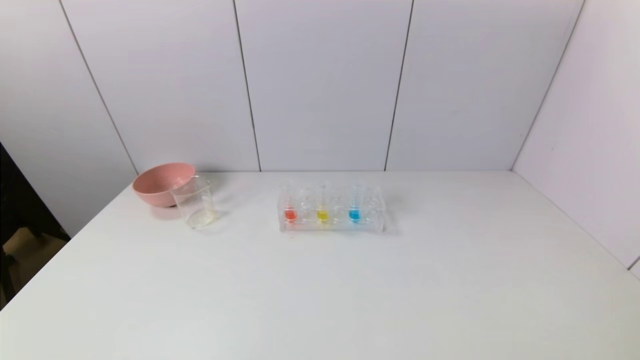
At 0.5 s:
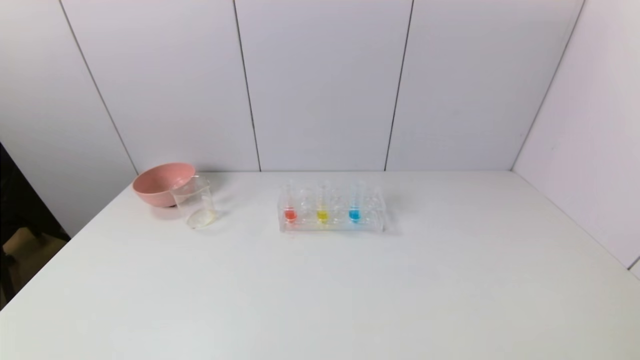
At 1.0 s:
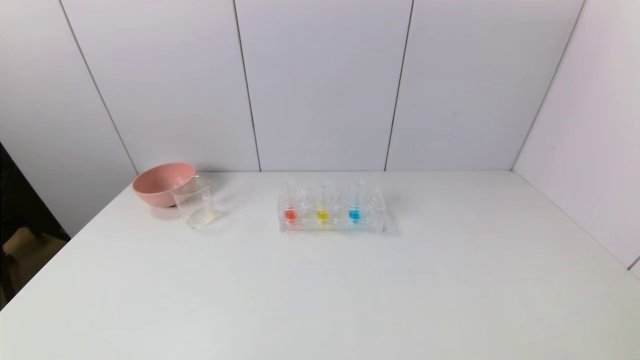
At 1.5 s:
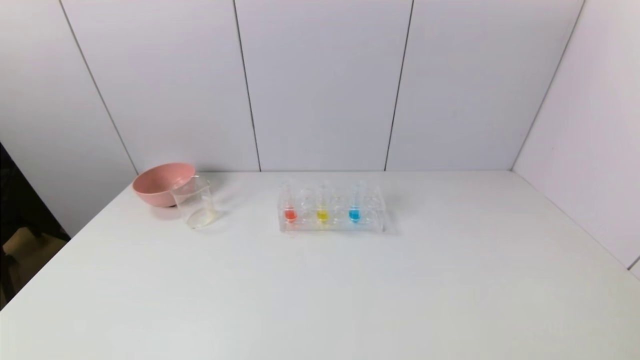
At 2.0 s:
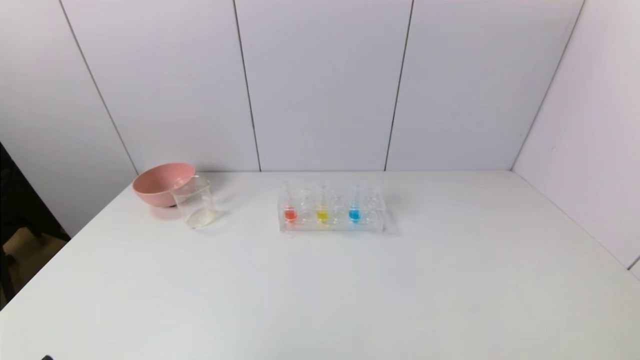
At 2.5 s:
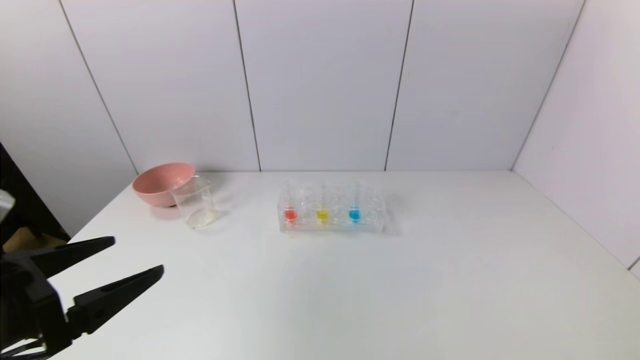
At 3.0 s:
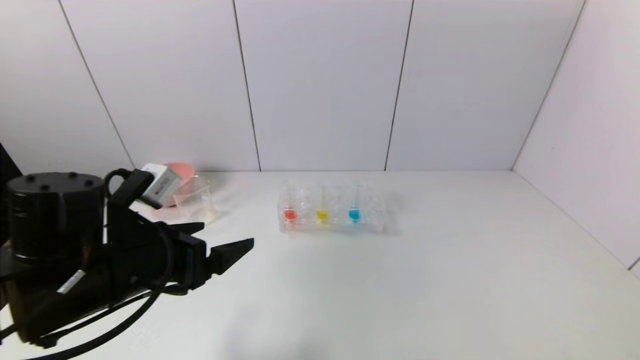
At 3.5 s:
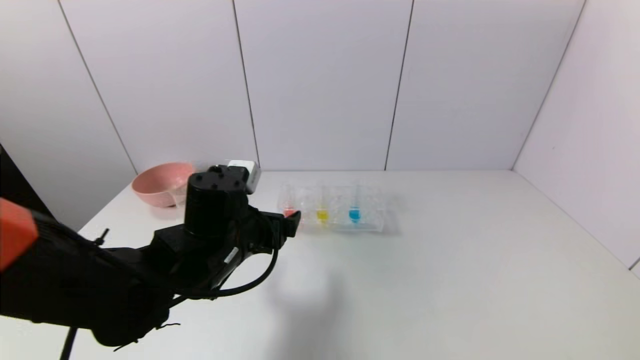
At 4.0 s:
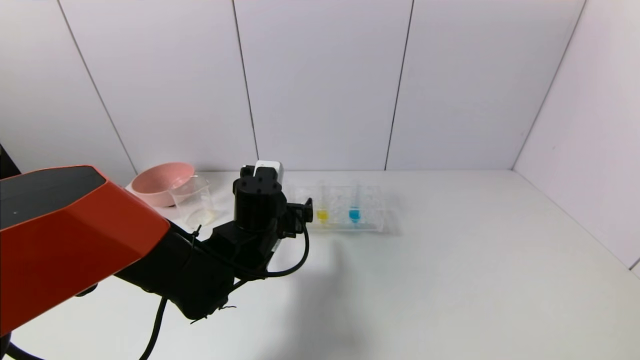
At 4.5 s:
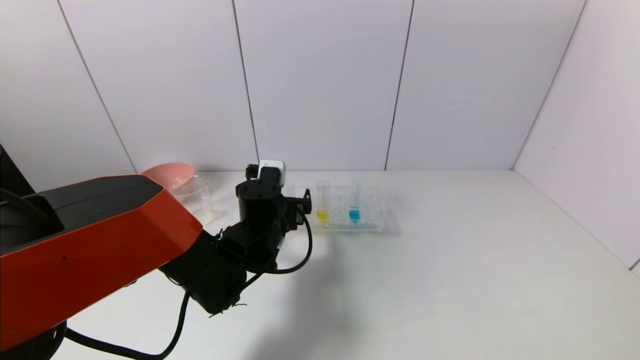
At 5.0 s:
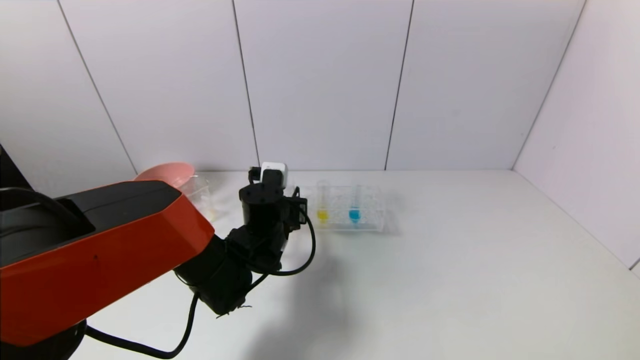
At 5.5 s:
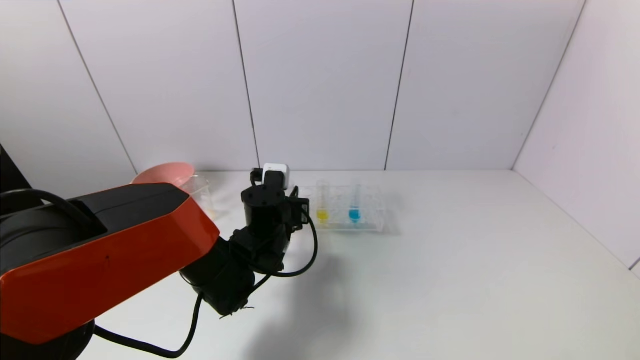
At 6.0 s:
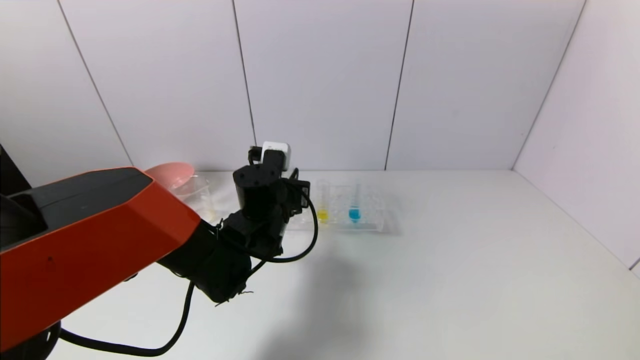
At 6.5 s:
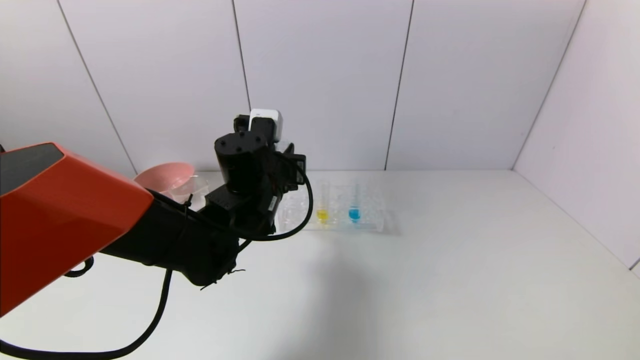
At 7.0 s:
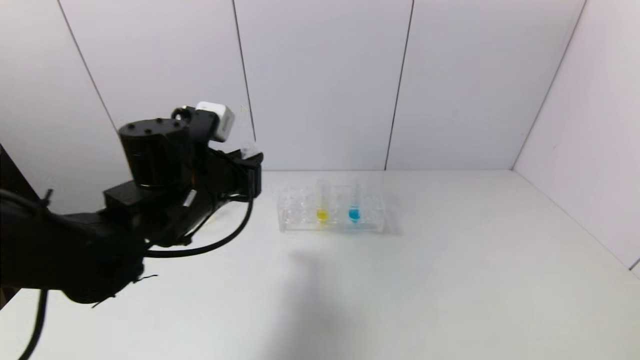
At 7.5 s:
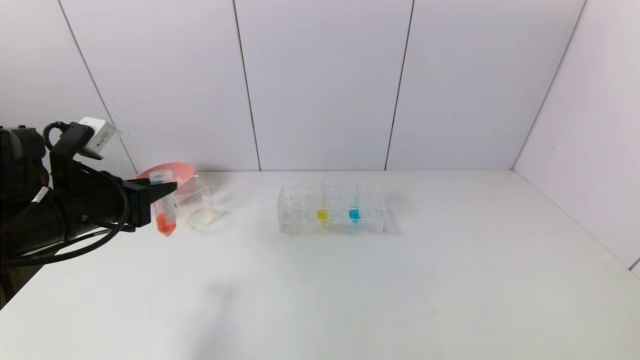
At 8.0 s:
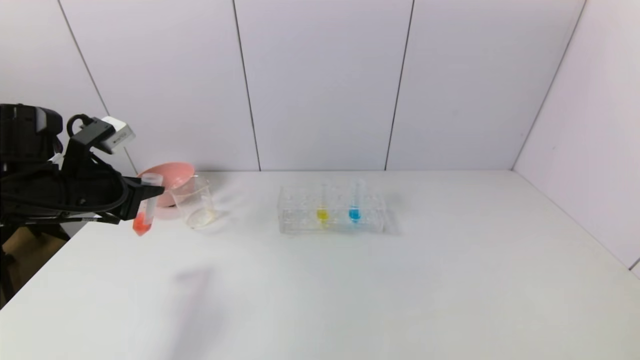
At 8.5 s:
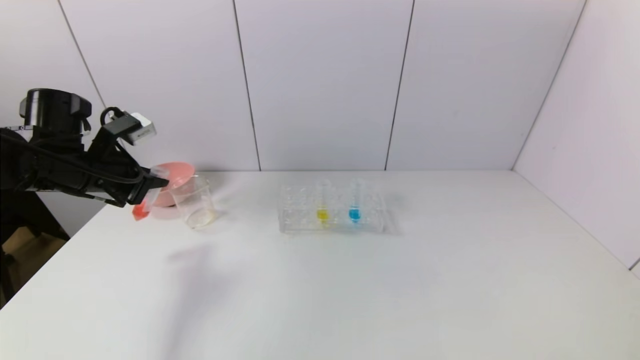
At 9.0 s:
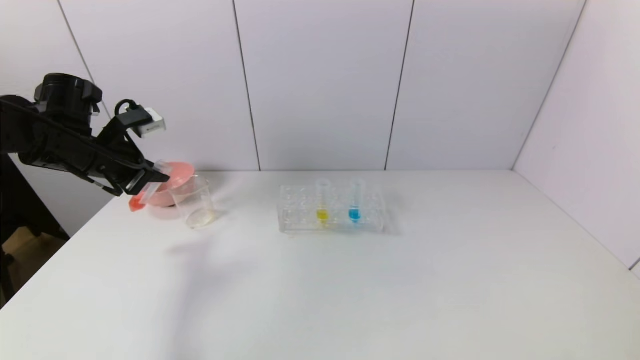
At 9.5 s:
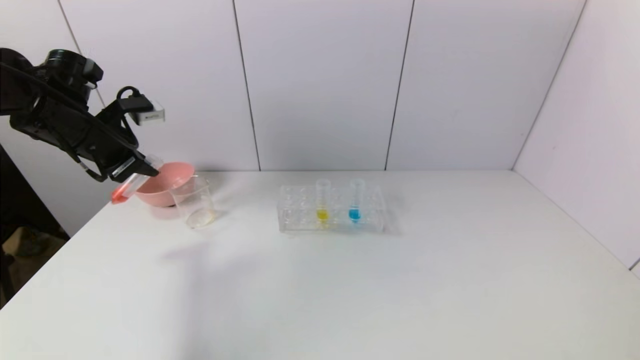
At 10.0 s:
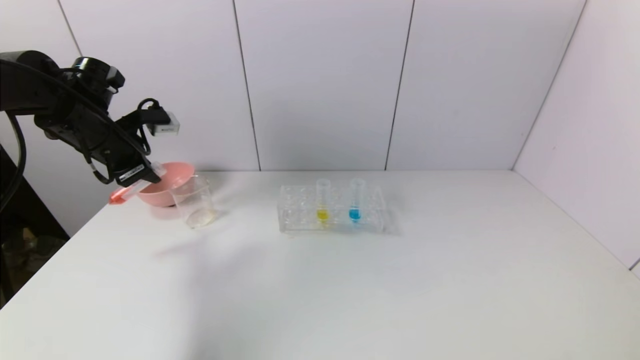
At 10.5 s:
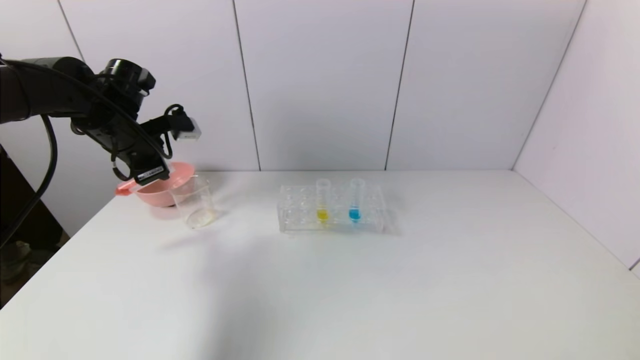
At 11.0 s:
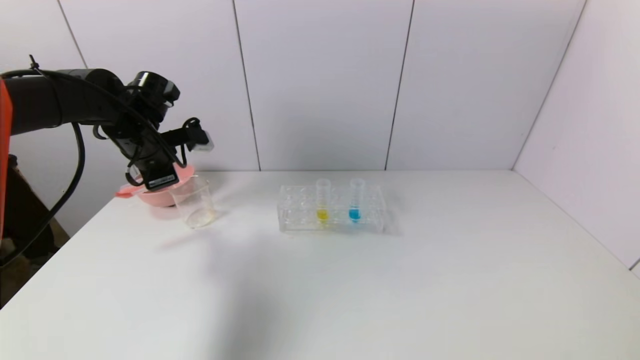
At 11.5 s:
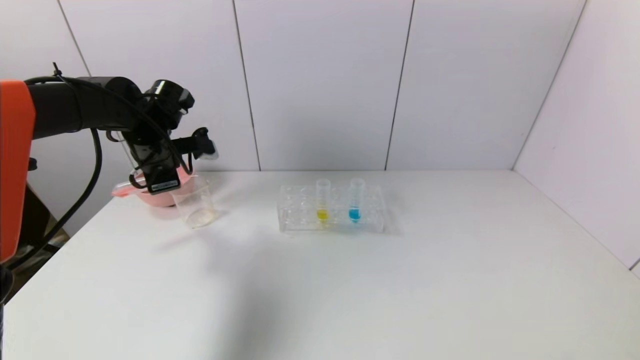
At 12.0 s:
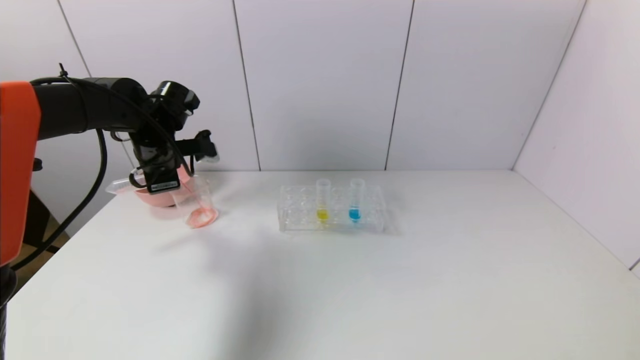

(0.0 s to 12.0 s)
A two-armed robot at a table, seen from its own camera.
Task of the whole recording: pick up the test tube with yellow pigment and the test tube with red pigment by grippers and pour them into the beaker.
Step, 0.0 s - 5.0 s: Grasp the red reagent with the left gripper.
2.0 s - 4.0 s: The left gripper travels forward and to the right by roughly 40 cm.
4.0 s - 6.0 s: The left gripper closes its fingers.
6.0 s - 8.0 s: The left gripper goes approximately 25 cm to the left.
8.0 s - 10.0 s: The left gripper is displaced forward by about 10 cm.
10.0 s - 12.0 s: The left gripper heads to the right, covering some 5 cm.

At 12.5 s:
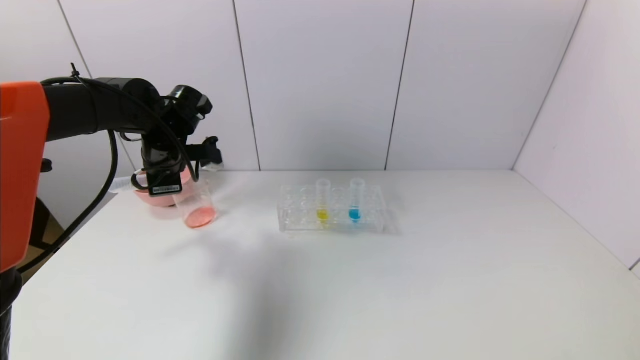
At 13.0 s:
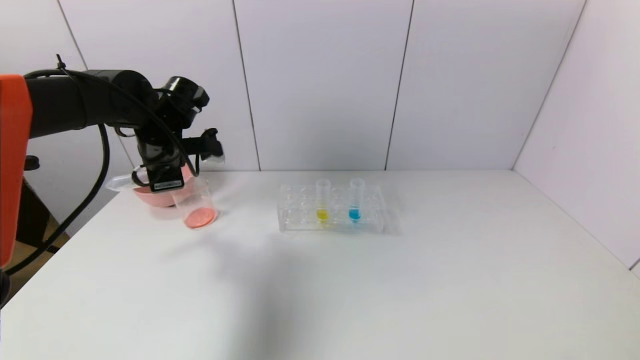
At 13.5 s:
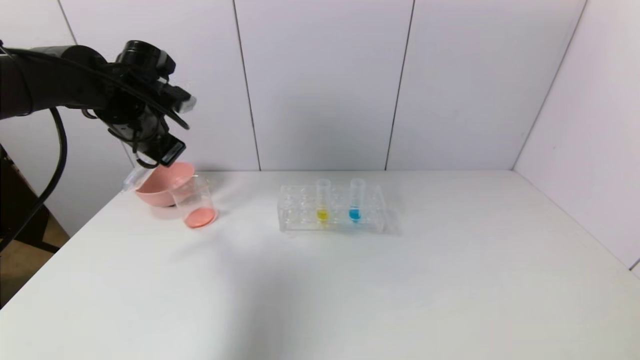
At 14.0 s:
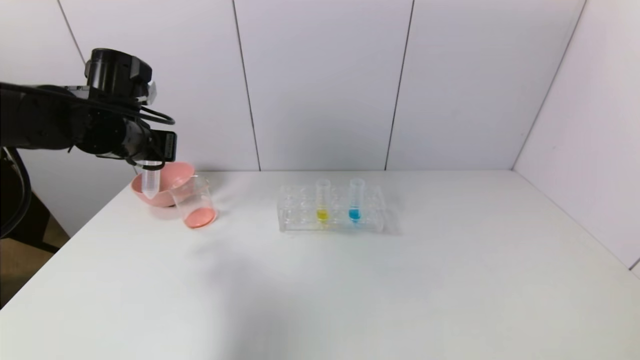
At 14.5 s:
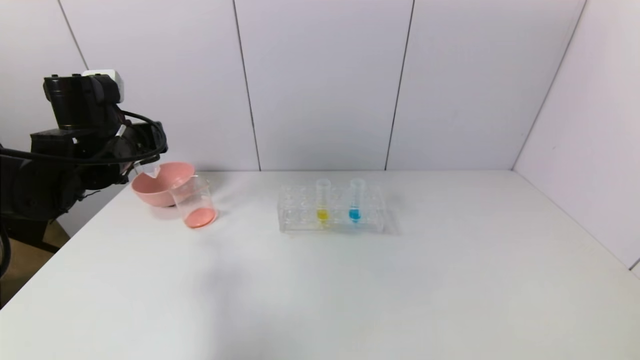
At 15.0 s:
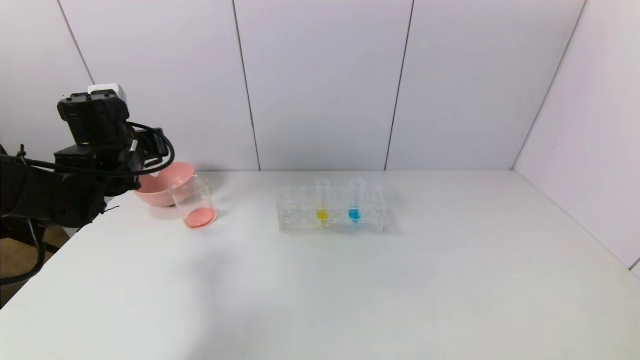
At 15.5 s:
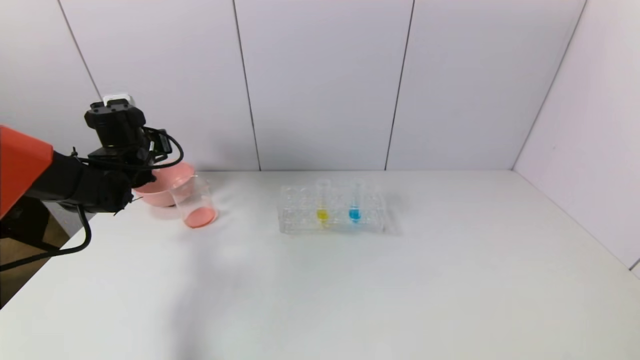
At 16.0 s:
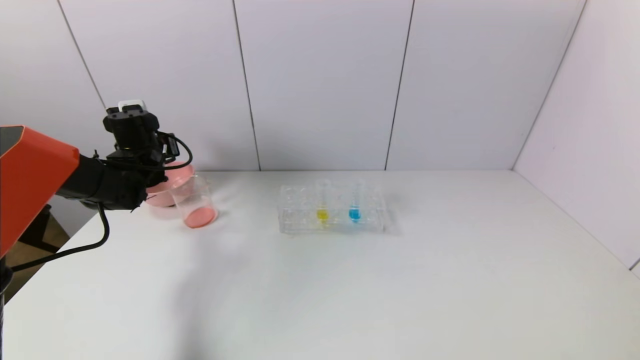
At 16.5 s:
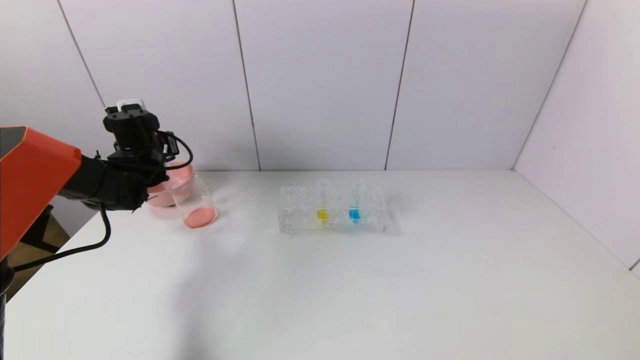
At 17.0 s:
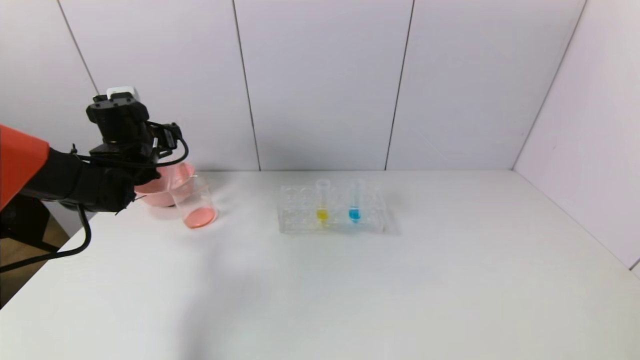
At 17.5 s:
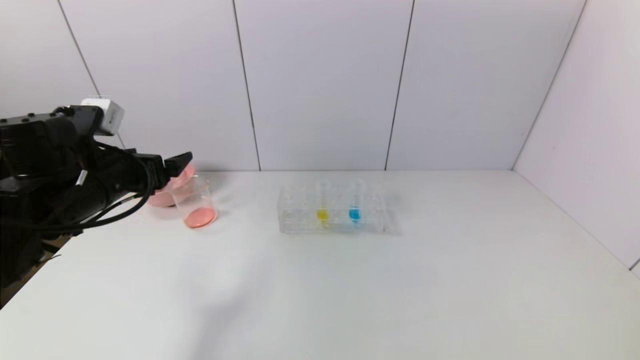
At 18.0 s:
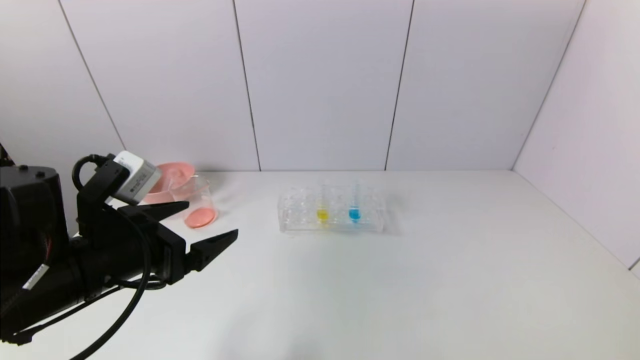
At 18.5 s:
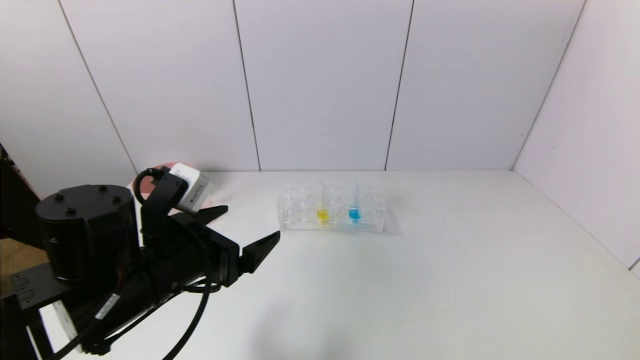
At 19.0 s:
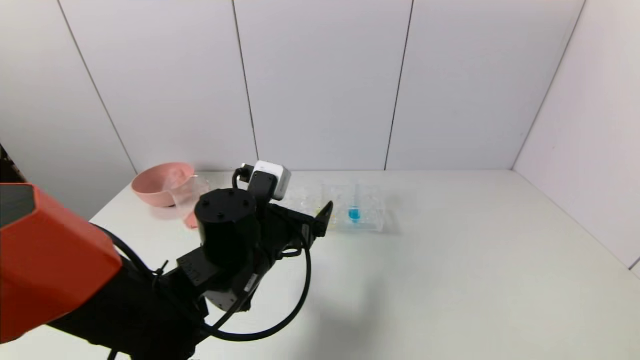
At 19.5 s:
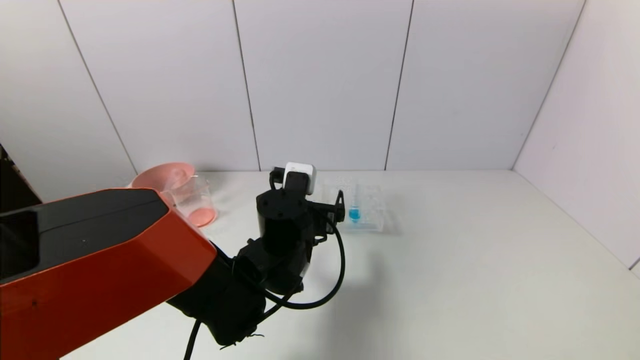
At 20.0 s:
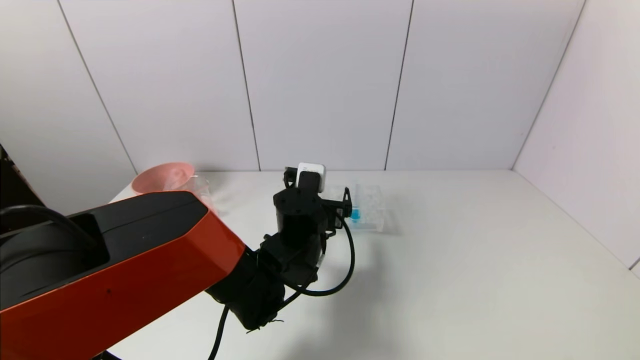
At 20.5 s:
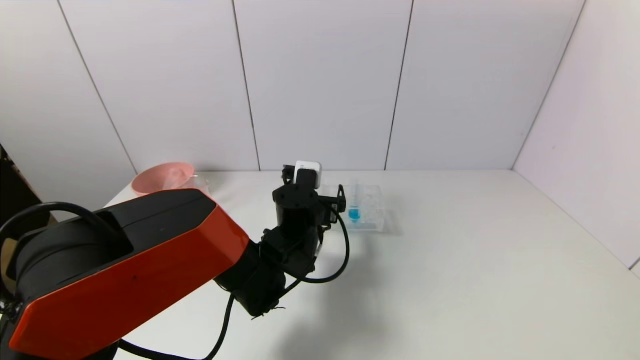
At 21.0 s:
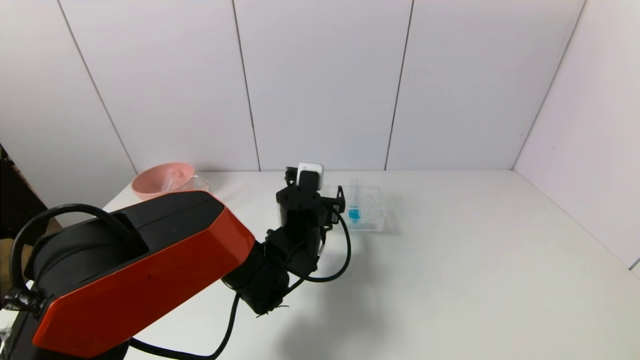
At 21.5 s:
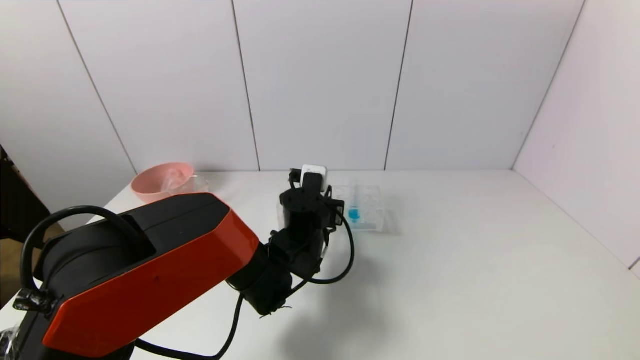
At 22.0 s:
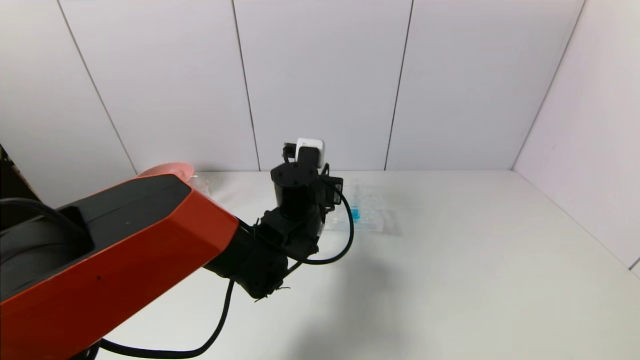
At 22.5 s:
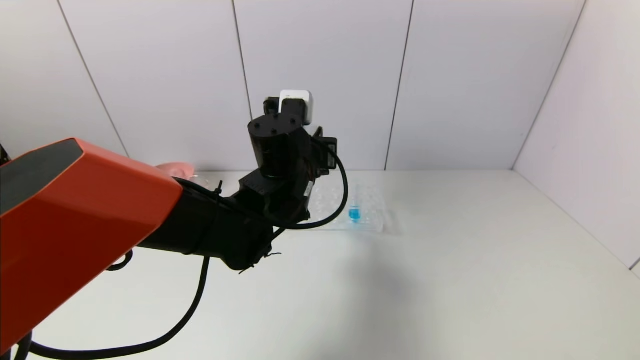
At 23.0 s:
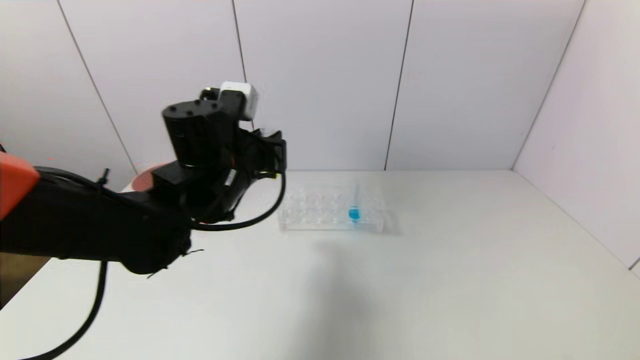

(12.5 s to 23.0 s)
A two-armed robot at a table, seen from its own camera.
Task of the whole recording: pick up the test tube with yellow pigment and the test tube with red pigment by grippers and pour them into the beaker.
Step, 13.0 s - 16.5 s: Place the test tube into the pink bowl with the left gripper.
Step, 17.0 s - 21.5 s: Grasp the yellow reagent with the left gripper.
12.5 s - 14.5 s: The left gripper goes approximately 5 cm backward.
14.5 s - 16.5 s: The left gripper travels forward and downward by roughly 15 cm, and opens its fingers.
16.5 s - 19.0 s: The left gripper travels to the right and backward by roughly 30 cm.
19.0 s - 21.0 s: The left gripper shifts about 10 cm forward and to the right.
21.0 s - 23.0 s: The left gripper moves upward and to the left, about 15 cm, and closes up.
